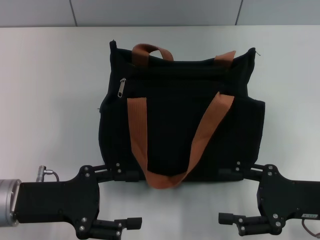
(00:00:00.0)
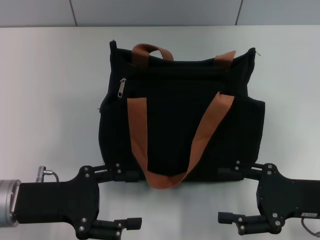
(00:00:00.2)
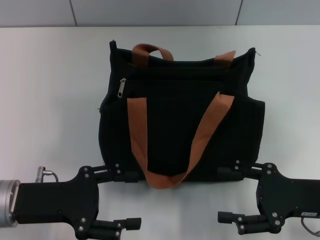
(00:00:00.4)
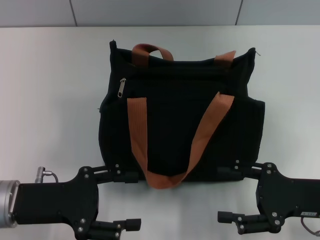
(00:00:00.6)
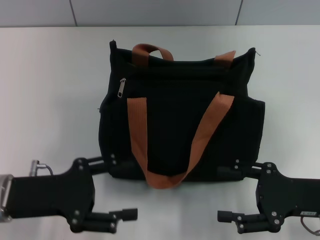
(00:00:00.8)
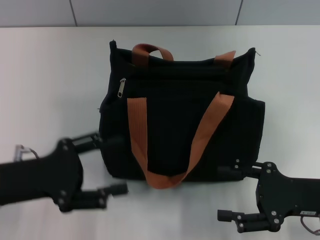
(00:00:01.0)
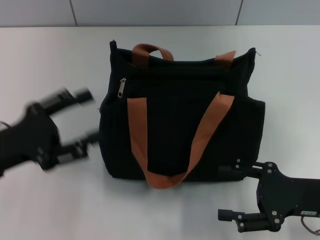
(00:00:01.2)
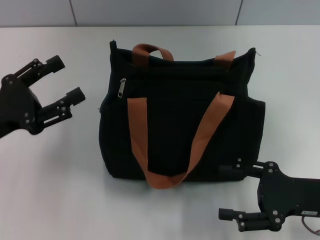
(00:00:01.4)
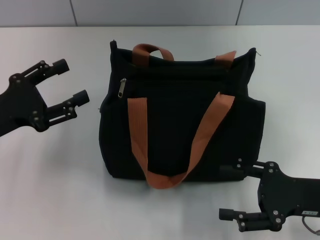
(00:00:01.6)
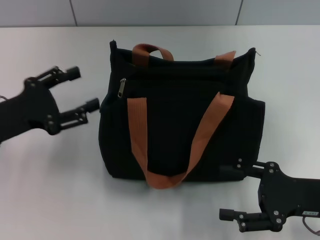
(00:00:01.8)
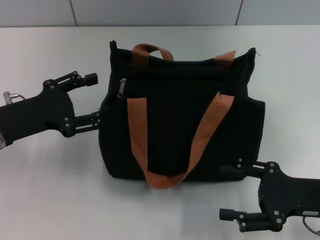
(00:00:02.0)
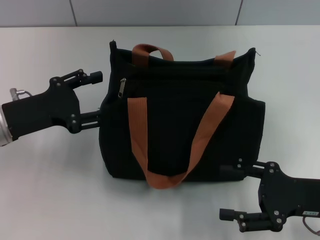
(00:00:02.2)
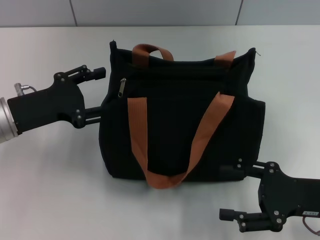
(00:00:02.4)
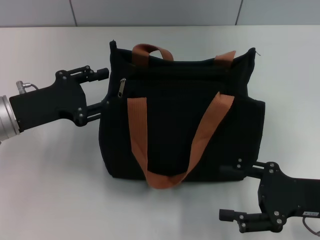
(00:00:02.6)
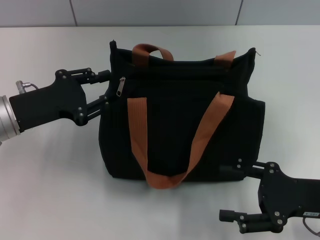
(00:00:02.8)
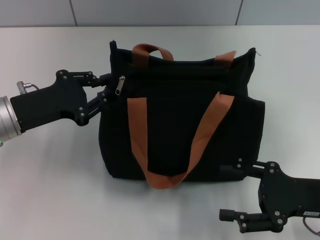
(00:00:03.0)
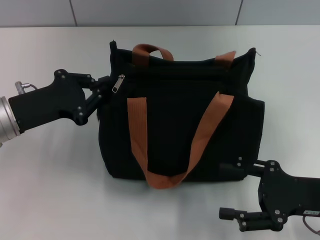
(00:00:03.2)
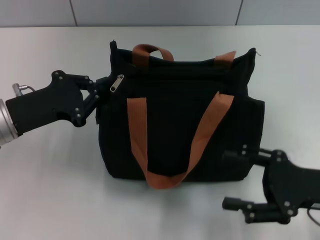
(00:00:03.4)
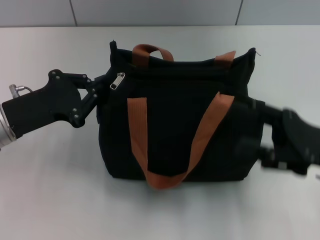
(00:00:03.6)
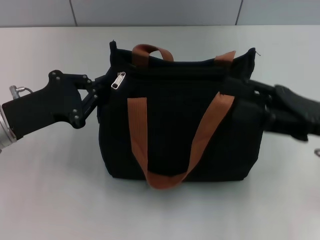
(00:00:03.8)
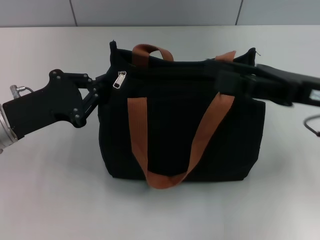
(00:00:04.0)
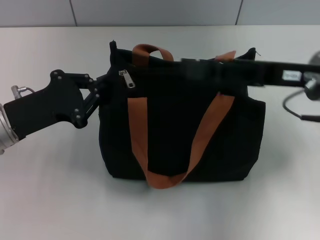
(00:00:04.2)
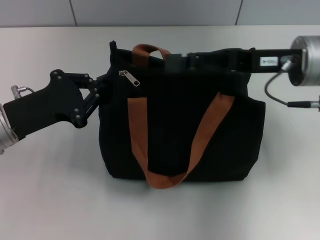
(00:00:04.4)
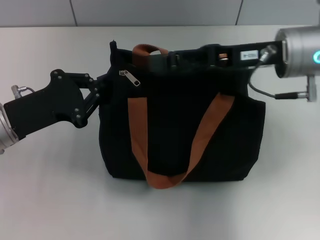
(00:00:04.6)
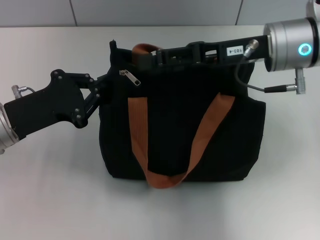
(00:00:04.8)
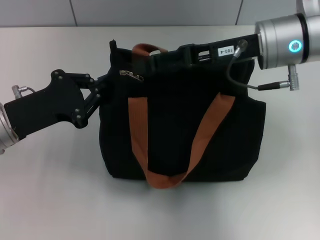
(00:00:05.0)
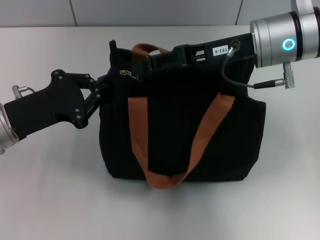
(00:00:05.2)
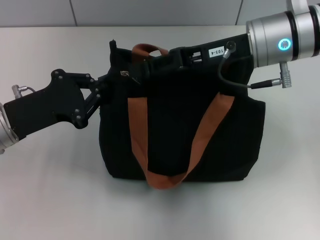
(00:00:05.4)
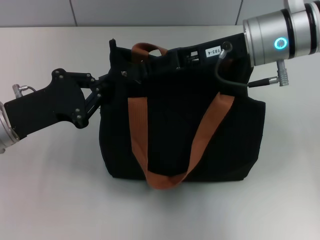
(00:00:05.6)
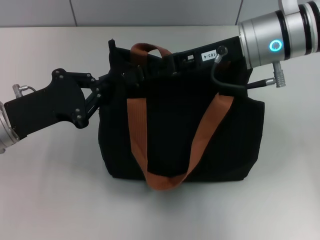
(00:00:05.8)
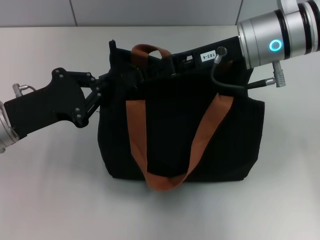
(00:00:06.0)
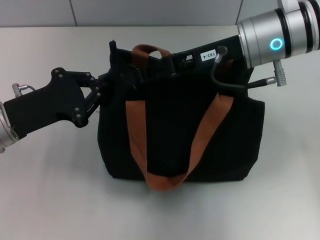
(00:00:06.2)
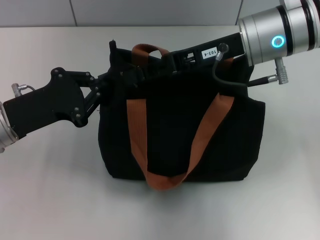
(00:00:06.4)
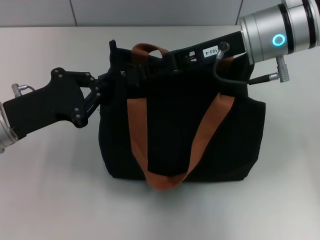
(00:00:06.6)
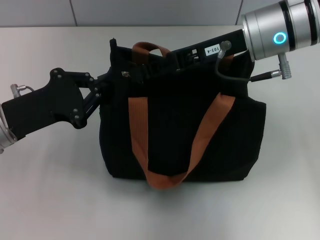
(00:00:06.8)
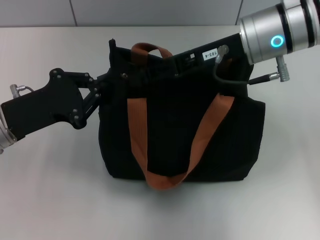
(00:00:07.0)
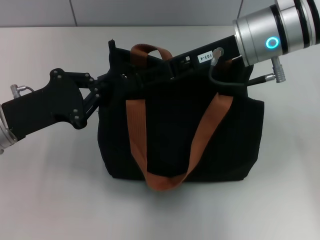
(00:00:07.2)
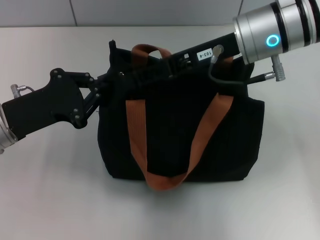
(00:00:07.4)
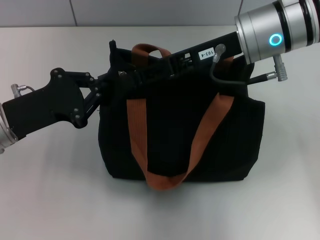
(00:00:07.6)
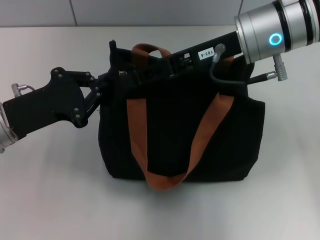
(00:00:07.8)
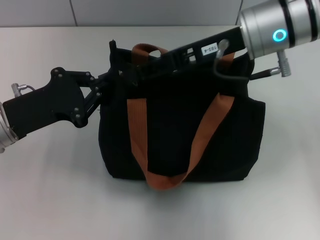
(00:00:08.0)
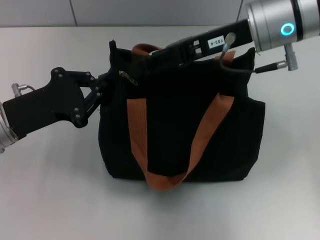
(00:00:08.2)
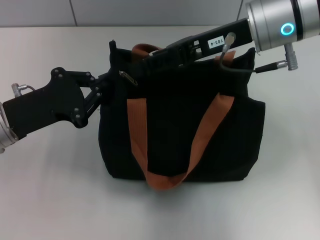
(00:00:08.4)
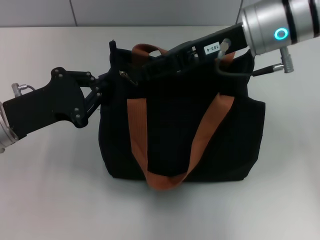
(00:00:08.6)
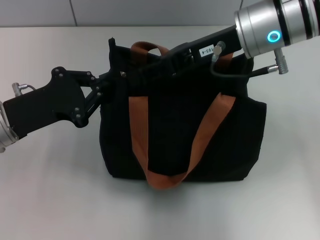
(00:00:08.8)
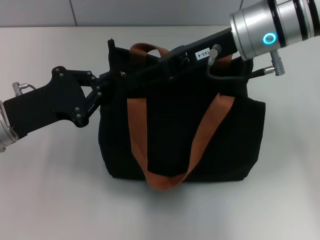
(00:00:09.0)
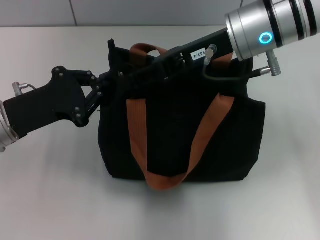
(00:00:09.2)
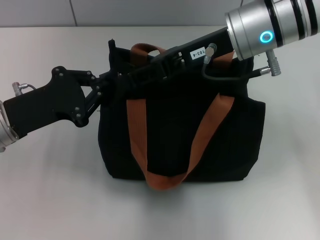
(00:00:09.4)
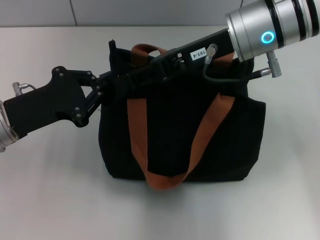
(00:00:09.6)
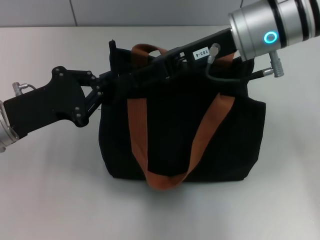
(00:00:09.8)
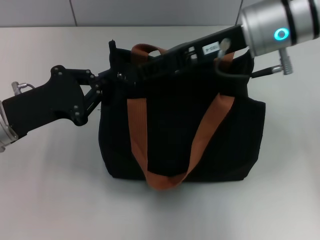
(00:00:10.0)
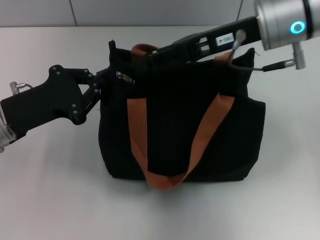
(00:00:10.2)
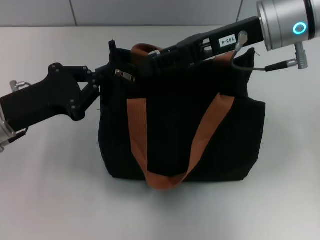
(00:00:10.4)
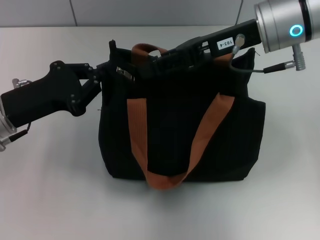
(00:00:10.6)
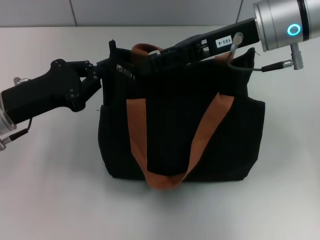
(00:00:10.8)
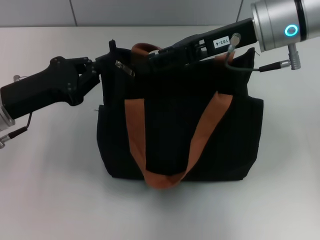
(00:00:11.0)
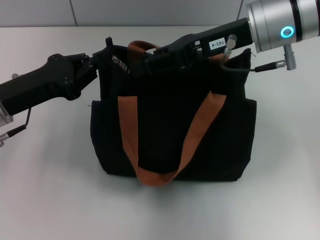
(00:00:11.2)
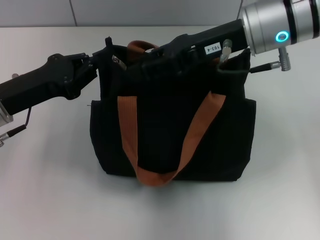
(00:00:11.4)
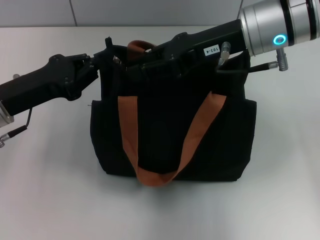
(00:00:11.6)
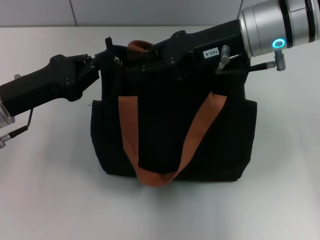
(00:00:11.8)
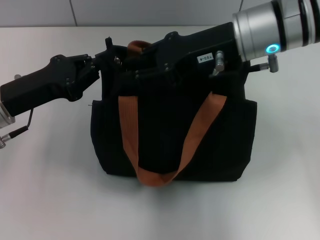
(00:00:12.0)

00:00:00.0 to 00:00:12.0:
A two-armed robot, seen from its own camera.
00:00:00.0 to 00:00:01.6: The left gripper heads to the left, covering roughly 5 cm.
00:00:01.6 to 00:00:03.0: The left gripper moves some 5 cm.
00:00:03.0 to 00:00:04.4: The right gripper moves forward, upward and to the left, some 20 cm. Meanwhile the left gripper closes its fingers.
00:00:04.4 to 00:00:06.0: The right gripper moves to the left, roughly 5 cm, and closes its fingers.
00:00:06.0 to 00:00:10.4: The grippers stay close to where they were, moving slightly.

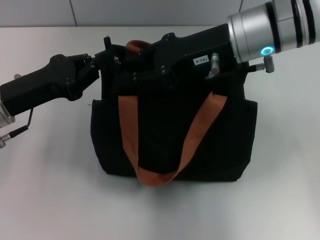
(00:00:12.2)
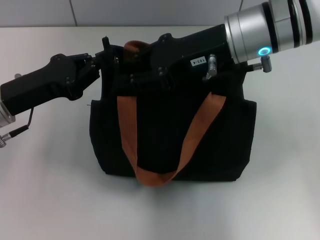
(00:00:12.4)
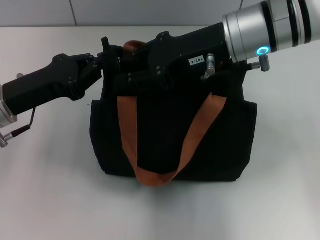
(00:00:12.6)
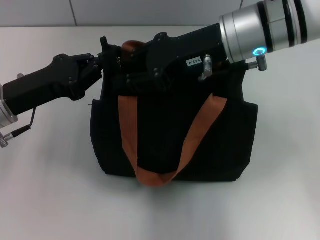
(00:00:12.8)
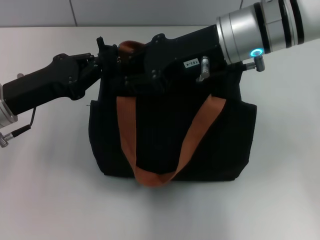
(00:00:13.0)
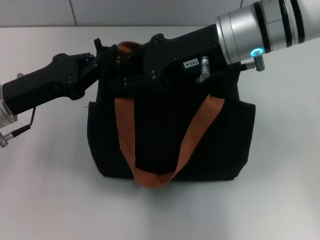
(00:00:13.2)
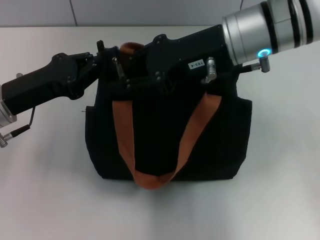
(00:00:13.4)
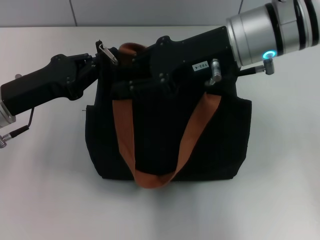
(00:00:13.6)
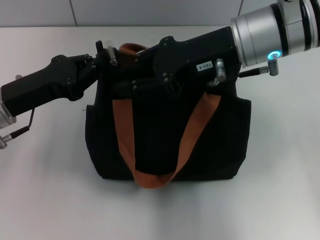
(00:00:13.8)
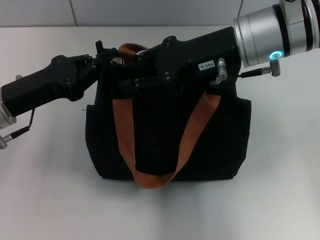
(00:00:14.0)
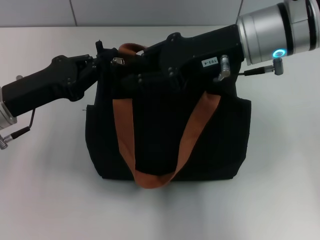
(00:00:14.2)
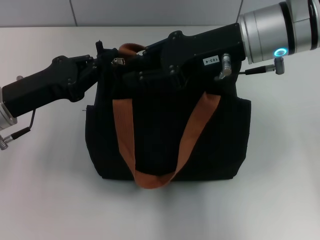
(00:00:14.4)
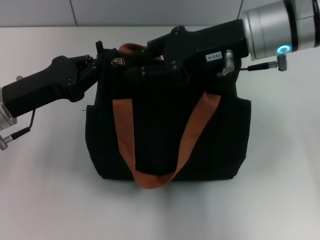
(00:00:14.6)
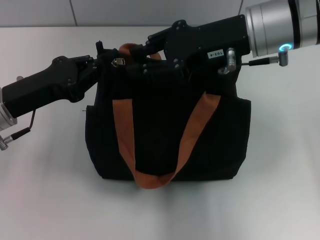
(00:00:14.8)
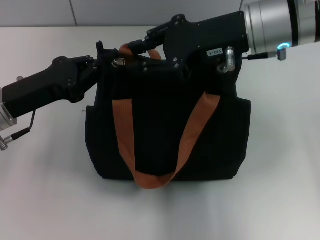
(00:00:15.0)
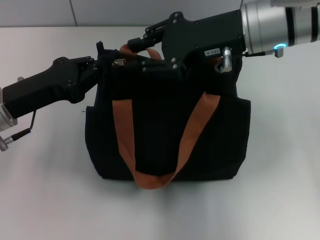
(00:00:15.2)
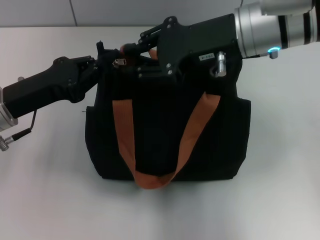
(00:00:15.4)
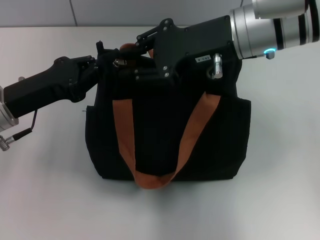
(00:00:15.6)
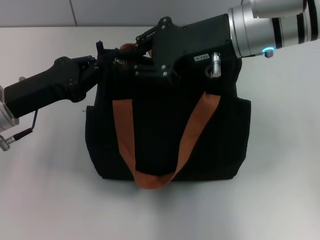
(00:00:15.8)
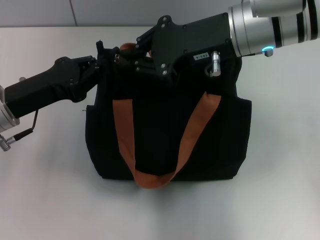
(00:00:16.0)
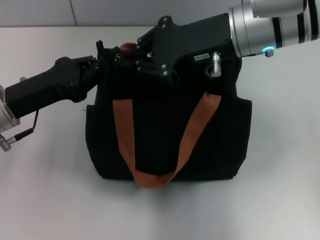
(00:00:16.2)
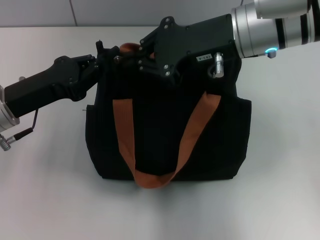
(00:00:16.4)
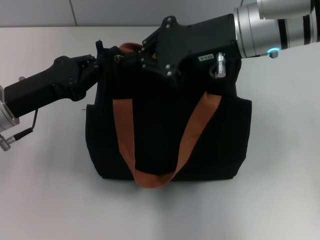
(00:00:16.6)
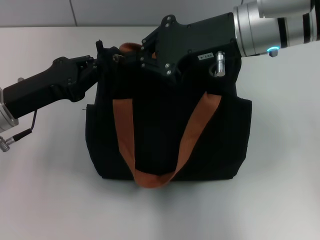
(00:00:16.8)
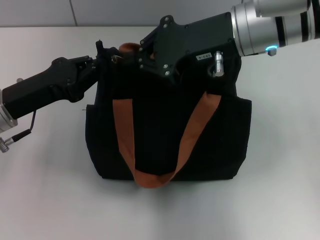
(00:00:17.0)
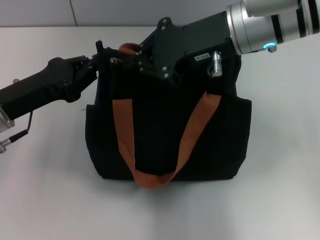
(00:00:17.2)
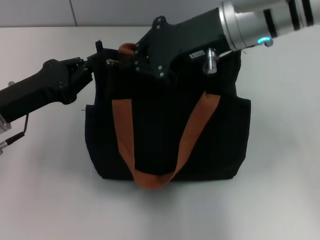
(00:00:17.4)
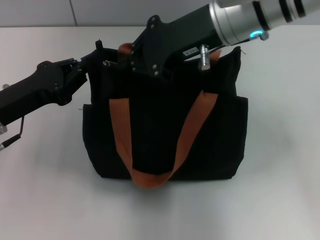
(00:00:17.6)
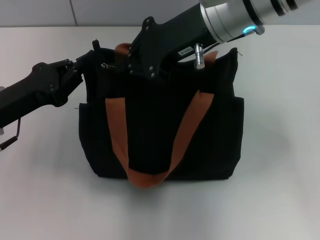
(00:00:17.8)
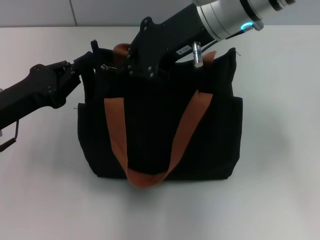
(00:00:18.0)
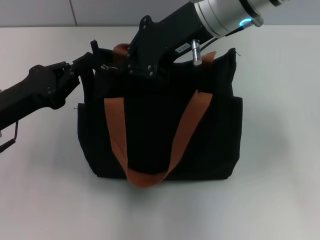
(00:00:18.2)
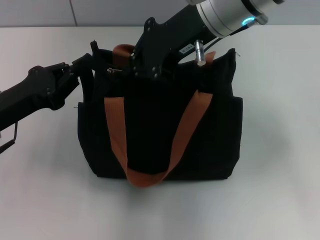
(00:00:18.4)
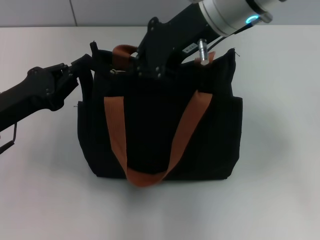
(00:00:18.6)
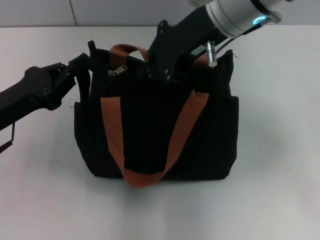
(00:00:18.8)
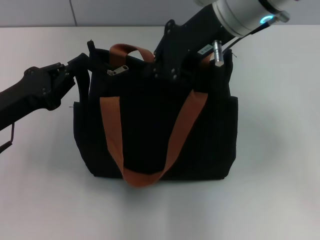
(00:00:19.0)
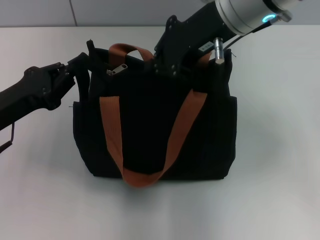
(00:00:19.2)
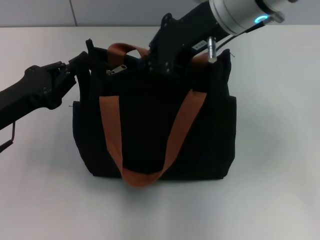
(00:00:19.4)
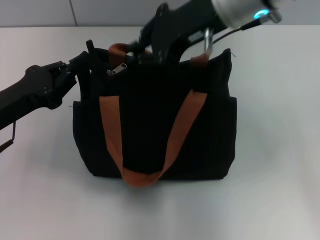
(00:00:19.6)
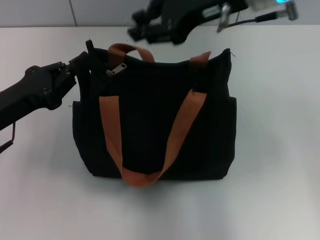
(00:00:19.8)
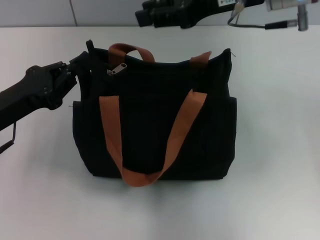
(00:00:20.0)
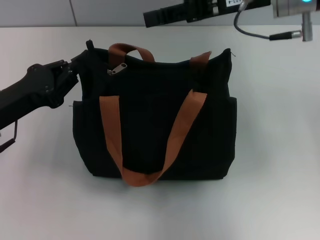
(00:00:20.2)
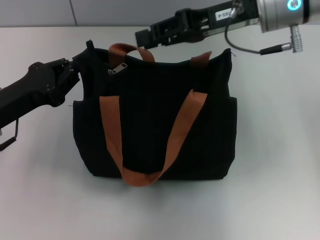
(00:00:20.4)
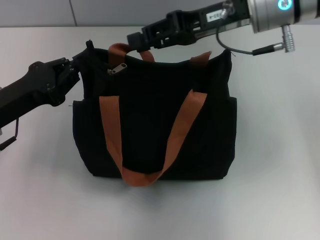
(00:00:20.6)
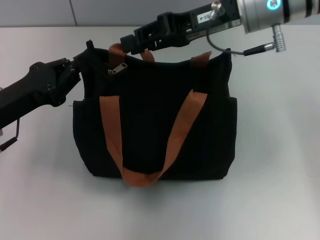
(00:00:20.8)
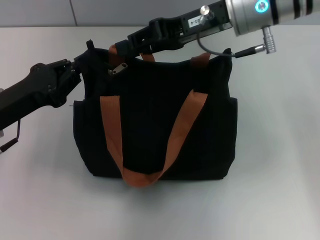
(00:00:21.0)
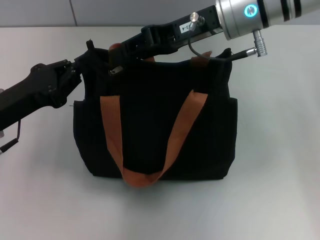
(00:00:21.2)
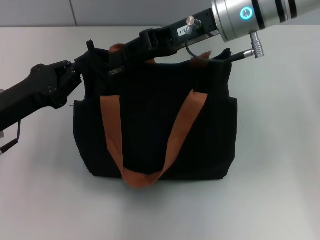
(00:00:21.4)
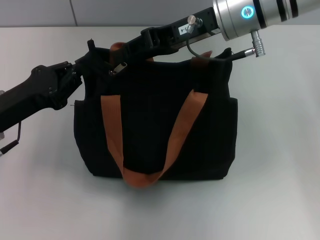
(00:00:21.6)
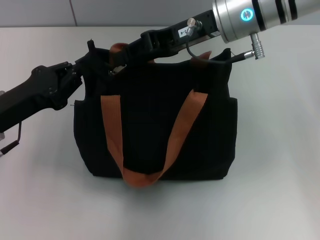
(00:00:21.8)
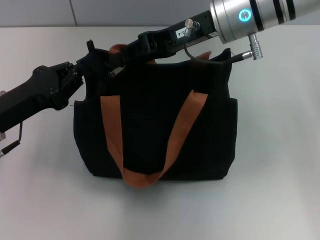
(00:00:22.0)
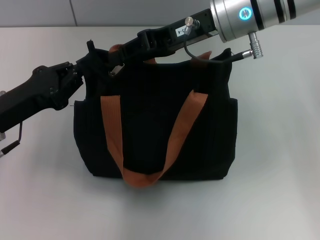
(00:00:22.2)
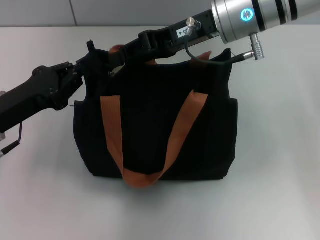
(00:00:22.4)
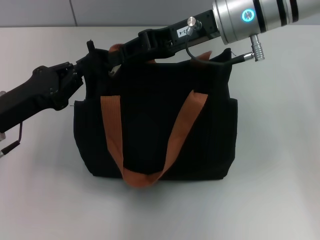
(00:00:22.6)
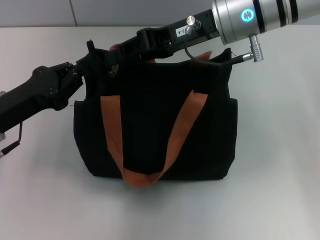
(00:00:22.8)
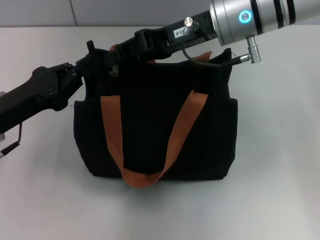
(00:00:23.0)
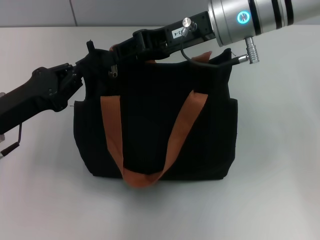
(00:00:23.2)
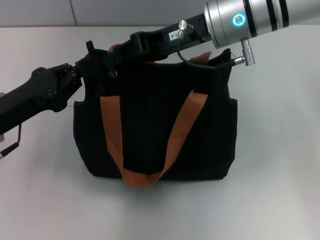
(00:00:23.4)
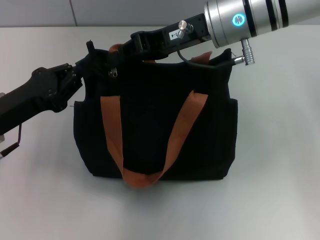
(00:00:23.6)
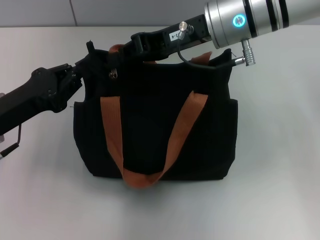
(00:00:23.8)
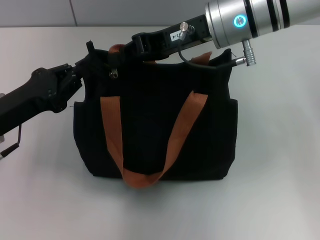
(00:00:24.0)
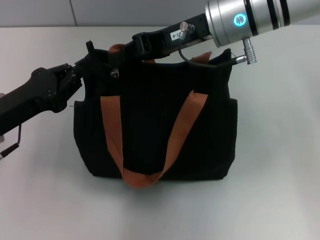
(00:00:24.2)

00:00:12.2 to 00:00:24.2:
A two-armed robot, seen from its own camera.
00:00:12.2 to 00:00:15.2: The grippers move only a little.
00:00:15.2 to 00:00:16.6: The right gripper closes its fingers.
00:00:16.6 to 00:00:18.2: The right gripper shifts some 5 cm to the left.
00:00:18.2 to 00:00:19.8: The right gripper moves to the right, approximately 5 cm.
00:00:19.8 to 00:00:21.2: The right gripper moves downward, about 5 cm.
00:00:21.2 to 00:00:22.6: Both grippers stay put.
00:00:22.6 to 00:00:24.2: The right gripper closes its fingers.
